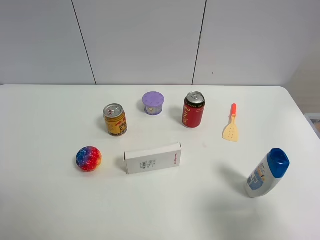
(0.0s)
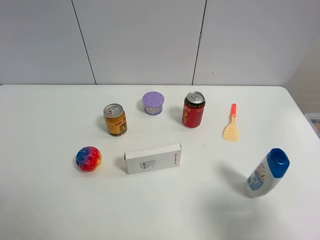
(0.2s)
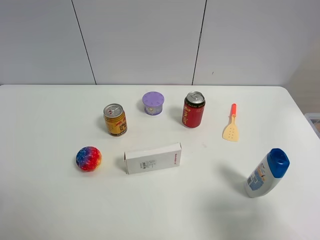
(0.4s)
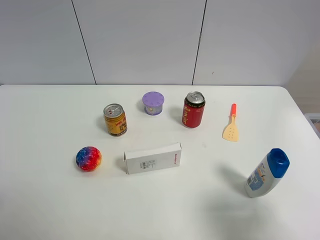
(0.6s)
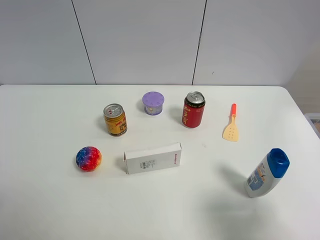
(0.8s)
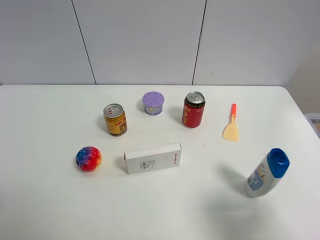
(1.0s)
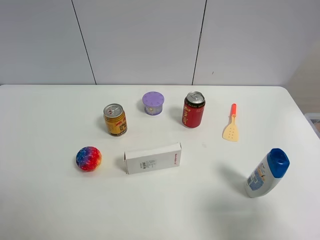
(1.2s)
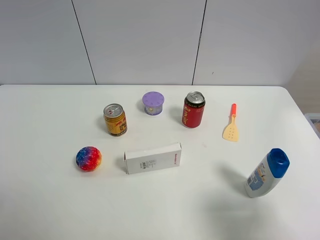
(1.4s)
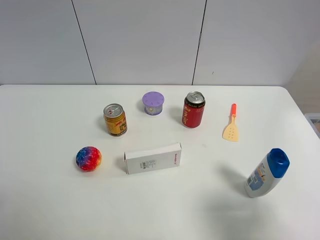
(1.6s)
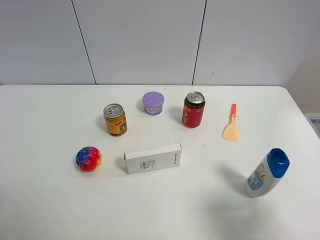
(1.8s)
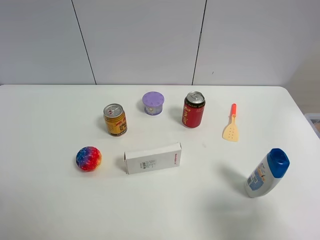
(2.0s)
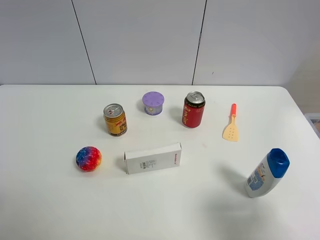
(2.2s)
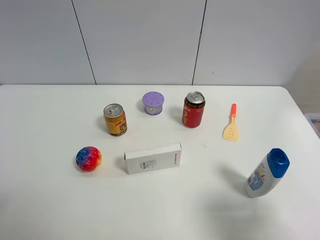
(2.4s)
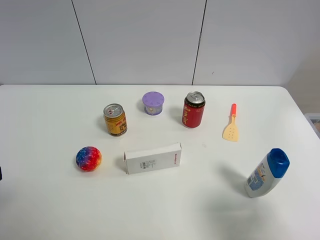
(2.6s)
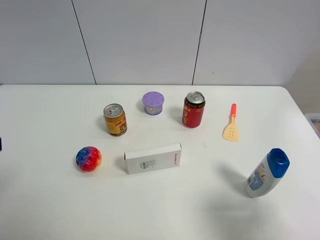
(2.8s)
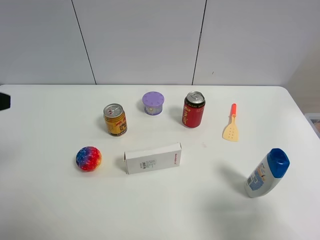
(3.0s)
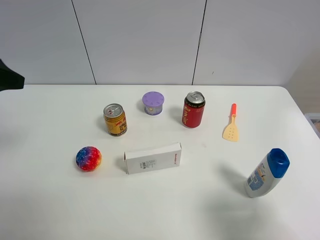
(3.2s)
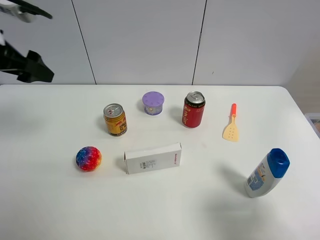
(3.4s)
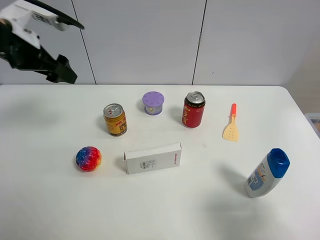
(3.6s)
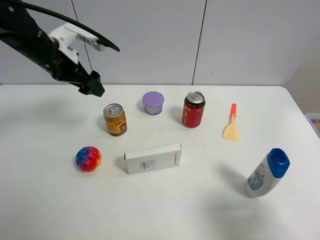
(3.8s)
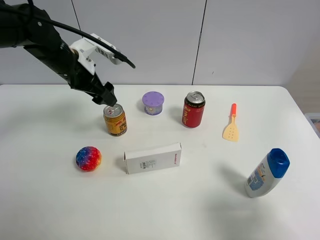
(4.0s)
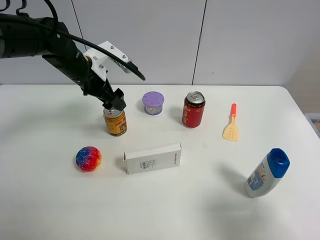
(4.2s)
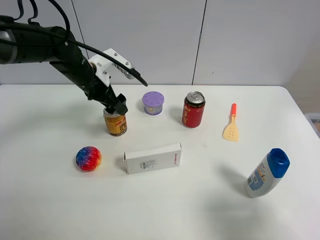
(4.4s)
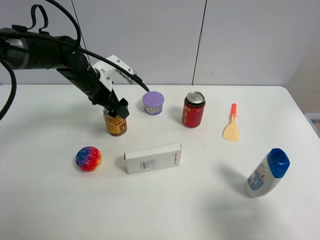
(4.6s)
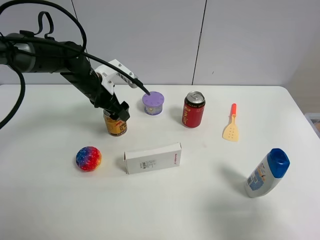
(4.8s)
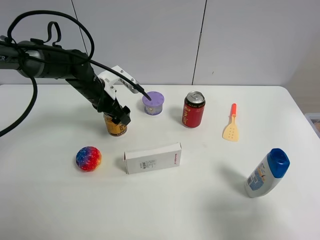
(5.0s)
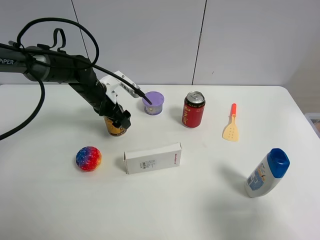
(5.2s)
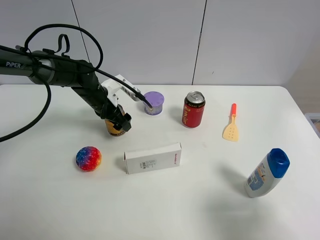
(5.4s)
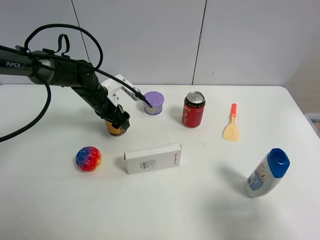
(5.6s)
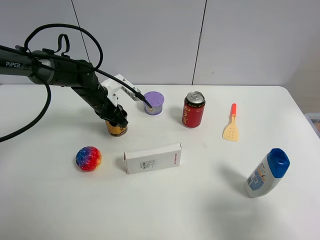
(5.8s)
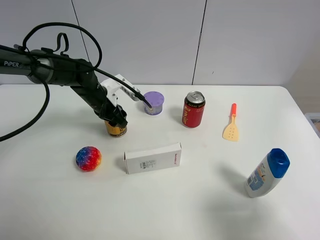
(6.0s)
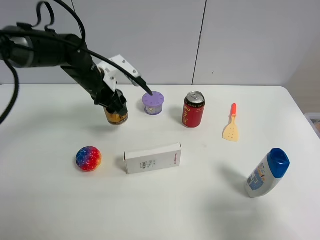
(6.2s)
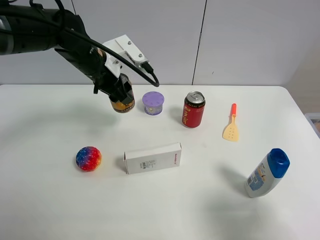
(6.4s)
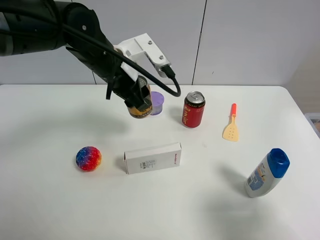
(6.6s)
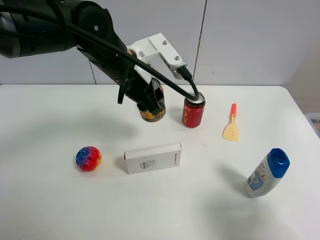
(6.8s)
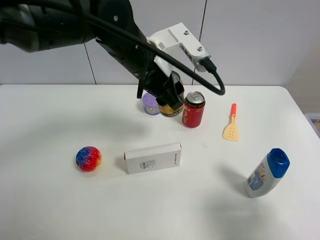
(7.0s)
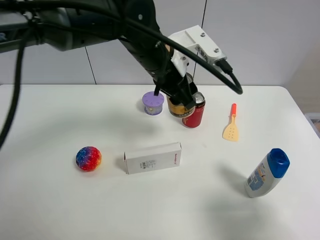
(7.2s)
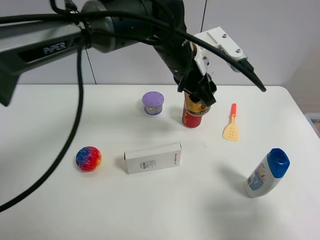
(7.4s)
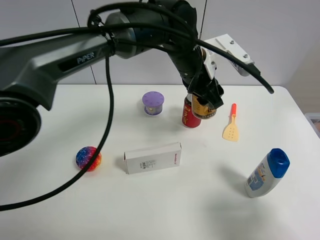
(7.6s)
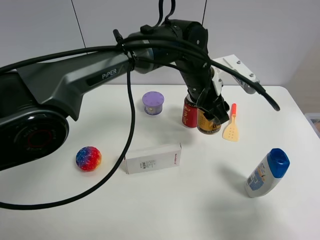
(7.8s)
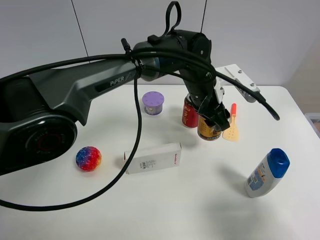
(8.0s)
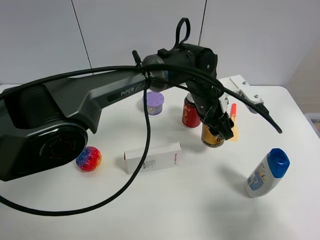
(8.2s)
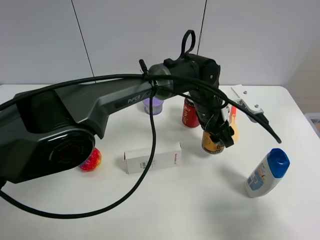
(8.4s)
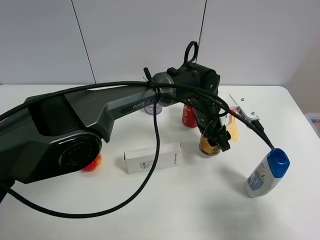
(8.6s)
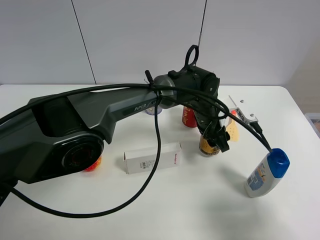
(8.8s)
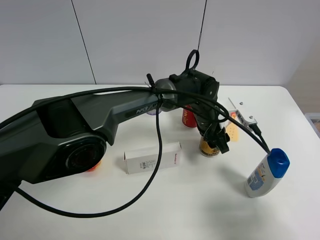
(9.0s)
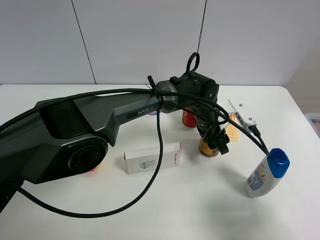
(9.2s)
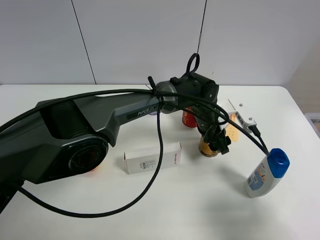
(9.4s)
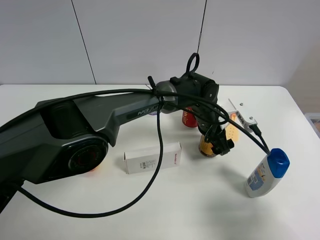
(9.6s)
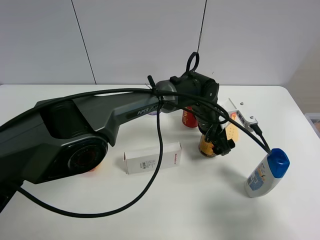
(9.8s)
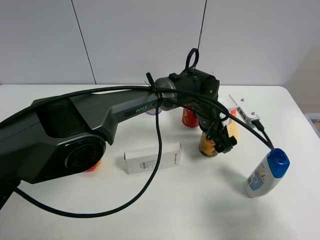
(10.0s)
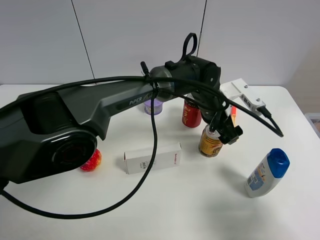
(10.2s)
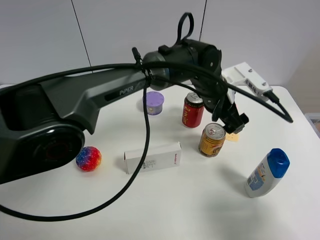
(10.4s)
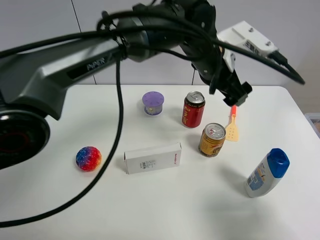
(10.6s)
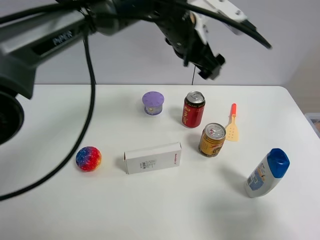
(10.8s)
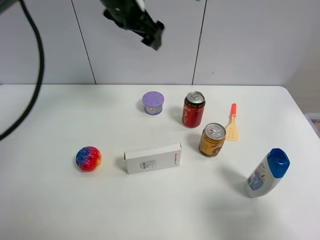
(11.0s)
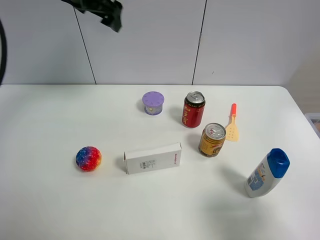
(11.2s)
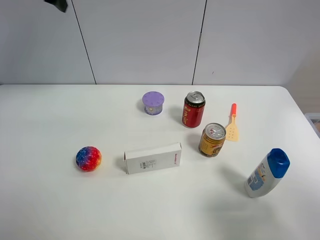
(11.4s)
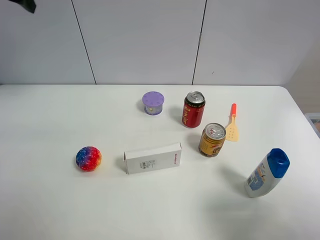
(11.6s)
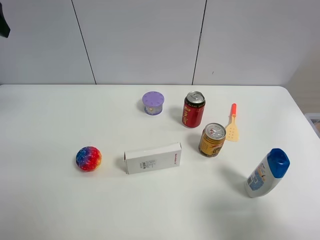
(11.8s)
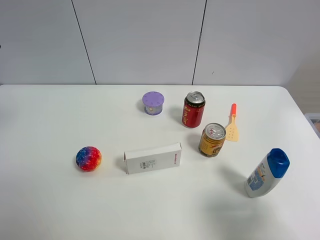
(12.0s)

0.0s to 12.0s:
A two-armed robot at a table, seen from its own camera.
Task of the whole recording: the gripper move the object.
Step, 0.0s to 5.6s: Grasp the red bull with the left gripper.
Step, 5.8s to 9.6s: Place the red bull on the table with the left gripper.
0.0s to 1.6s: Neither gripper changes place.
3.0s to 4.4s: The left gripper travels forward, downward and to the right by roughly 30 cm.
4.4s to 6.0s: The left gripper travels downward by roughly 5 cm, and closes its fingers.
6.0s to 7.6s: The left gripper travels to the right and upward by roughly 25 cm.
7.6s to 9.0s: The left gripper travels downward and to the right by about 15 cm.
9.0s to 10.4s: The left gripper goes some 5 cm upward, and opens up.
10.4s to 12.0s: The left gripper travels to the left and upward by approximately 50 cm.

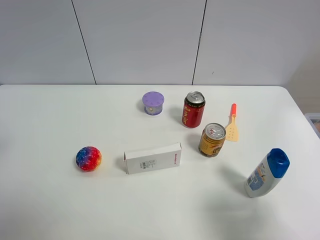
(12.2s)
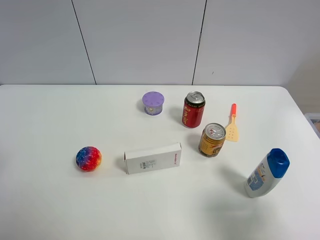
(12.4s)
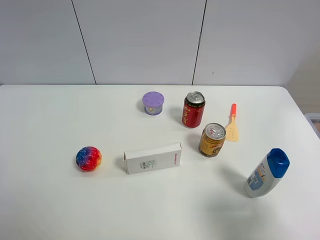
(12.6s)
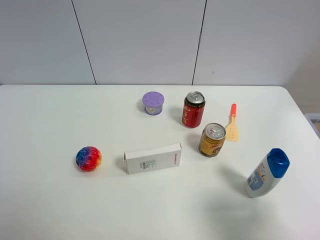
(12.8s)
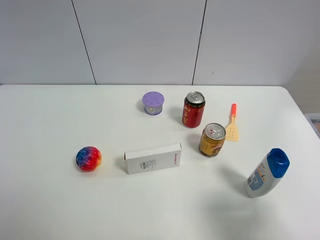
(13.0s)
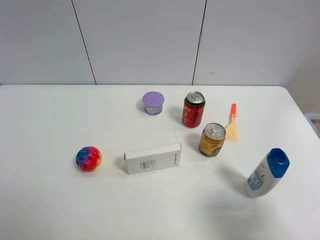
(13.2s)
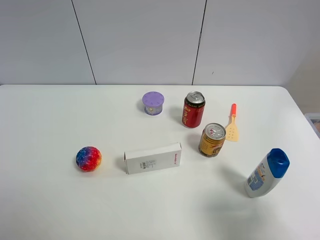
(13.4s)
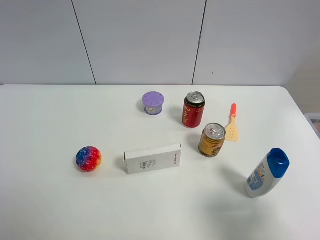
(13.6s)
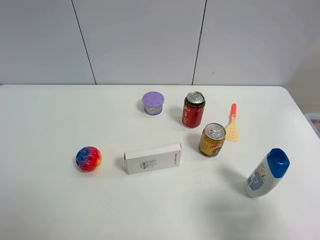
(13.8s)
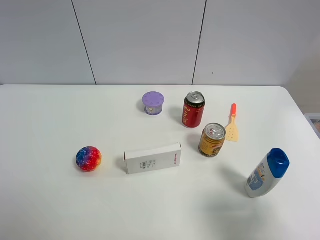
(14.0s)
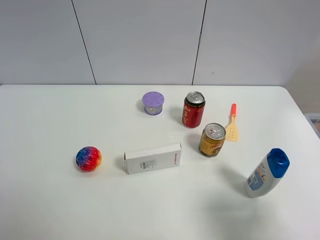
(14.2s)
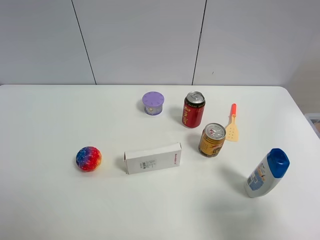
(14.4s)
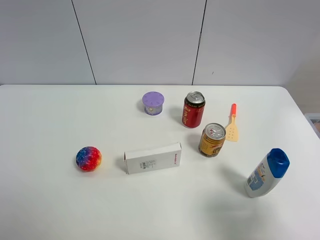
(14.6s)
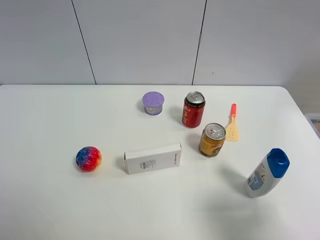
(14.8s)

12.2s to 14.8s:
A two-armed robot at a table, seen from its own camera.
Task of the whole recording: the gripper move the object.
13.4s to 14.8s: Both grippers stay put.

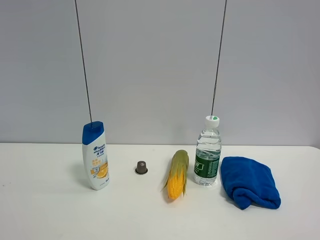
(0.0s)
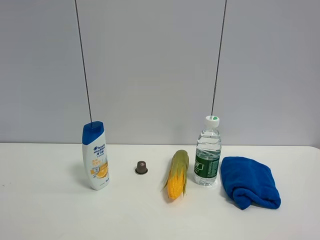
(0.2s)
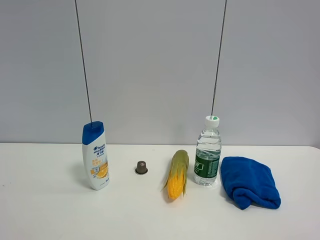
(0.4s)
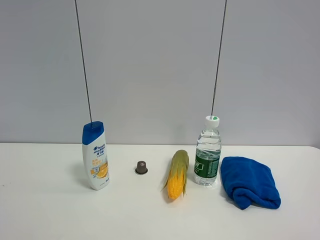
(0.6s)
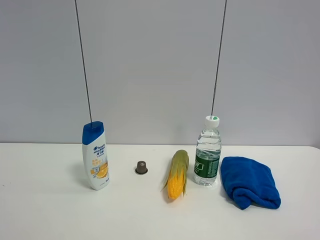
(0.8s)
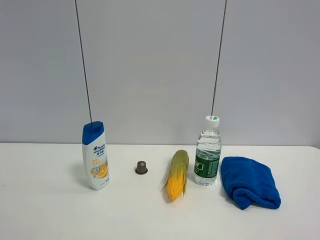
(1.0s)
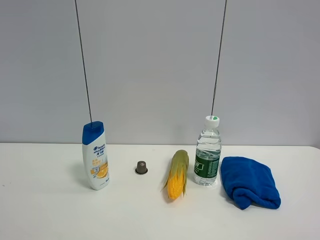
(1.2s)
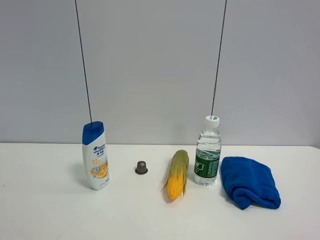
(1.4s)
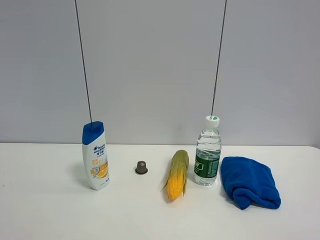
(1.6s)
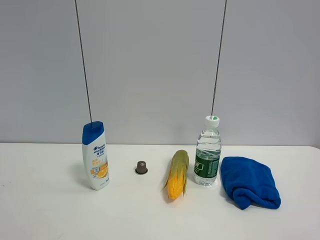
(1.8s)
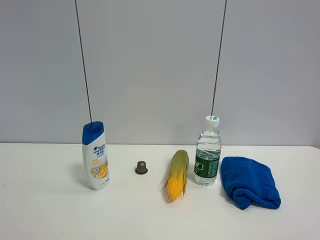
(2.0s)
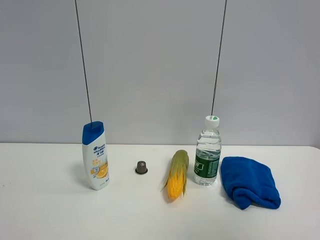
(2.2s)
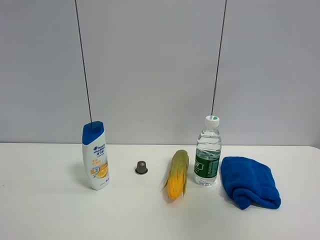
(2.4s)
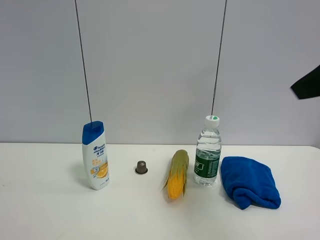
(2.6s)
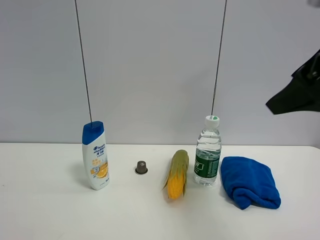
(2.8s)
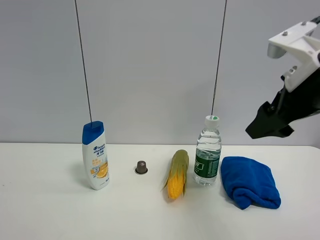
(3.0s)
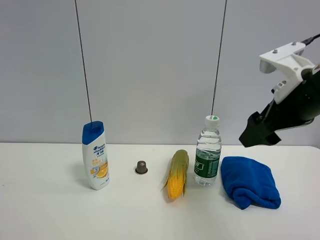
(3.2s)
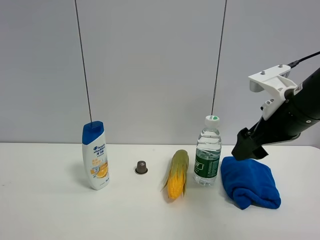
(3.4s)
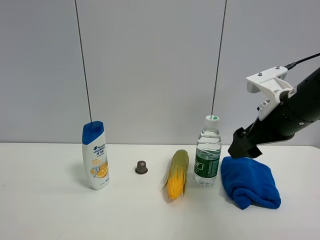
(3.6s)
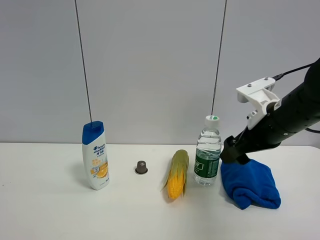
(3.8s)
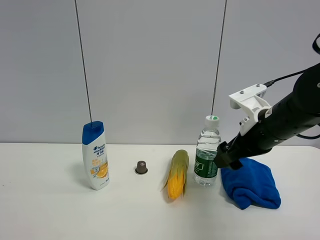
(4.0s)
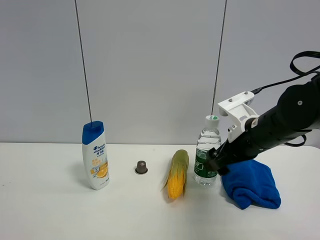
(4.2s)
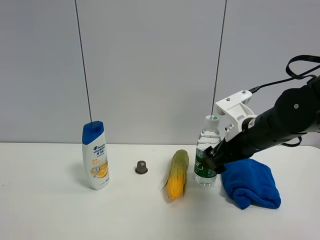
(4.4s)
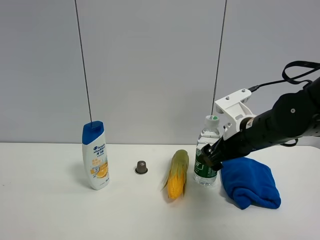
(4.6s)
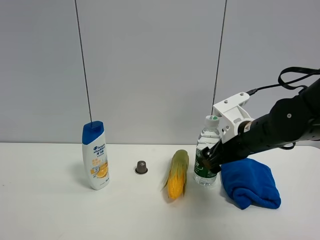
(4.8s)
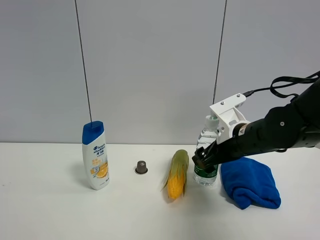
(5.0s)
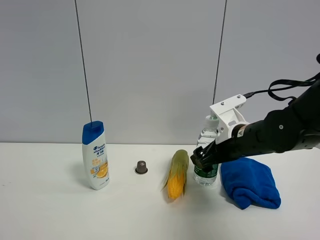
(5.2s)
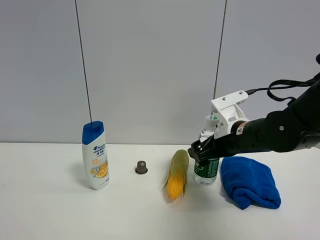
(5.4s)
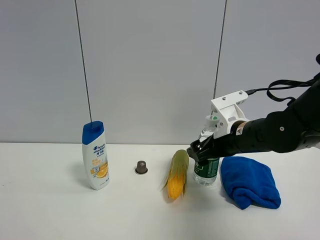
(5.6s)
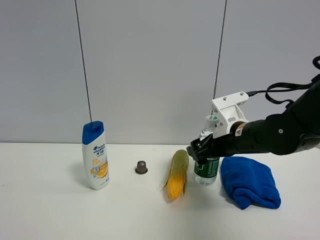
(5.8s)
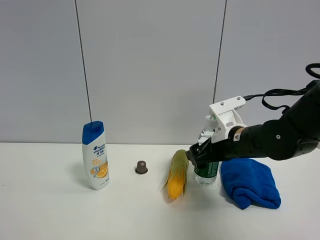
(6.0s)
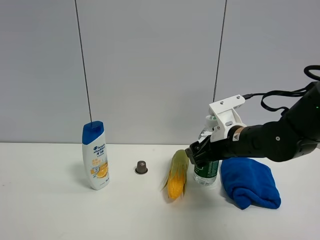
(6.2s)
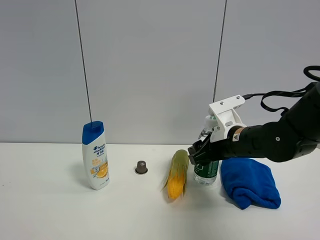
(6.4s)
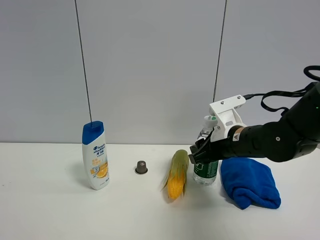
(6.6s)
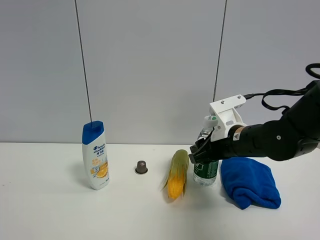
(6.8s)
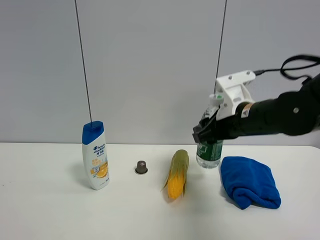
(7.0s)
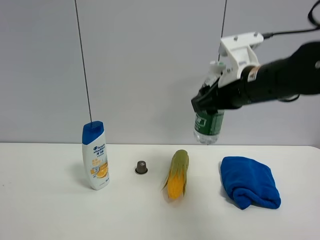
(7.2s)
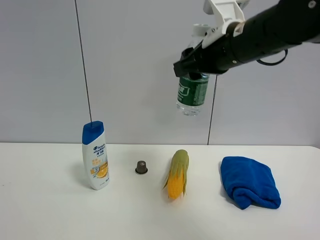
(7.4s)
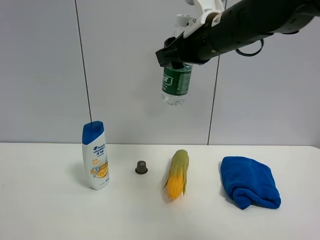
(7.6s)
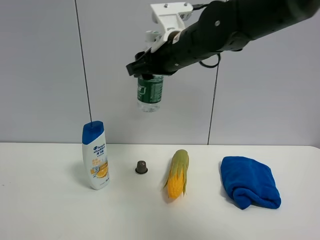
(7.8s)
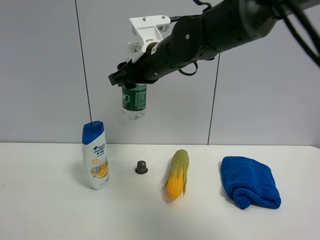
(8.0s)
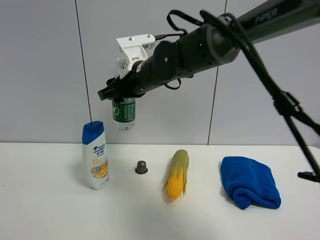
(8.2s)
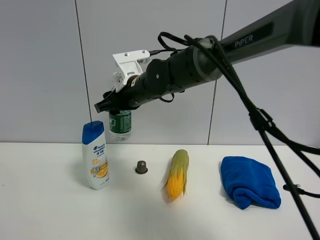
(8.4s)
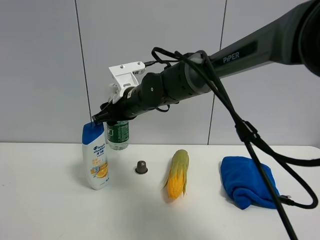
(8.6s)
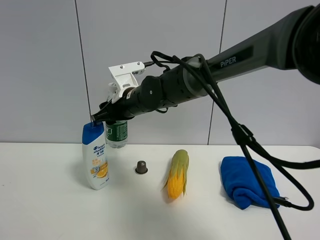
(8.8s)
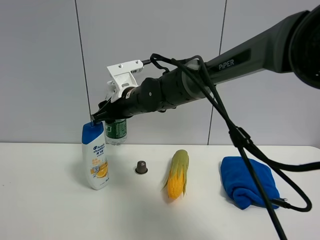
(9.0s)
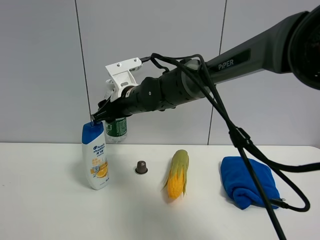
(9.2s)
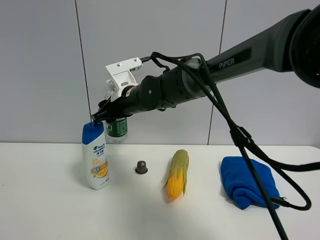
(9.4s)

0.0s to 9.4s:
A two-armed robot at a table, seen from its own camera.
Task of the whole recording: the gripper move the object.
Step, 0.0s to 6.4s: Grasp the YiBao mineral water with the right gripper.
0.0s to 1.6s: Neither gripper changes place.
1.6s to 3.2s: The right gripper goes some 30 cm forward.
3.2s to 4.8s: The right gripper moves downward and forward, about 10 cm.
4.8s to 6.2s: The right gripper closes its fingers.
6.2s to 7.8s: The right gripper travels upward and to the left by roughly 20 cm, and closes its fingers.
7.8s to 9.4s: The right gripper moves downward and to the left, some 15 cm.
